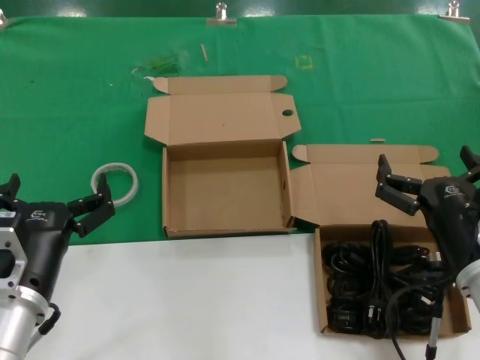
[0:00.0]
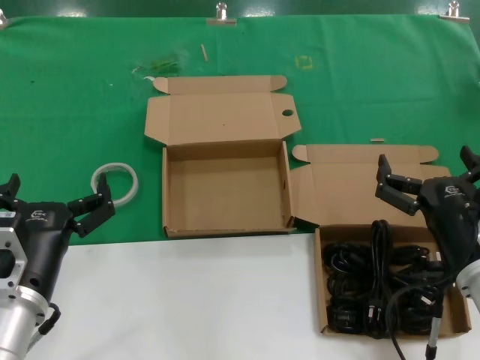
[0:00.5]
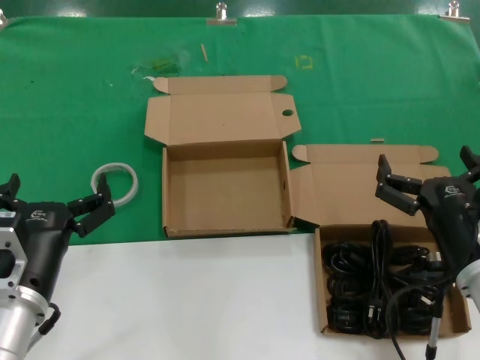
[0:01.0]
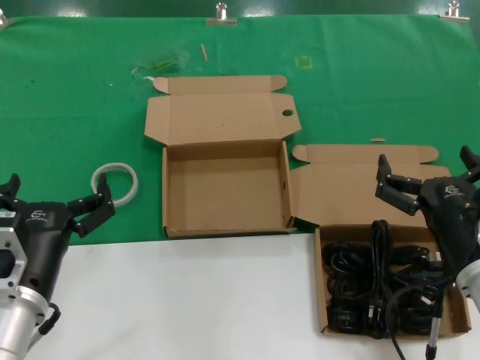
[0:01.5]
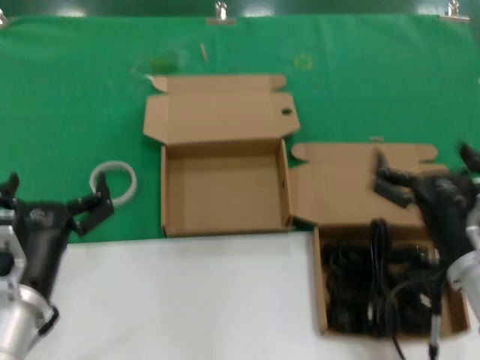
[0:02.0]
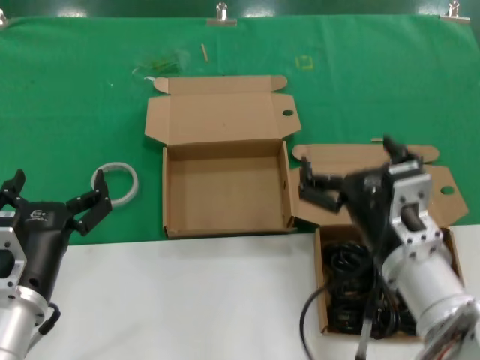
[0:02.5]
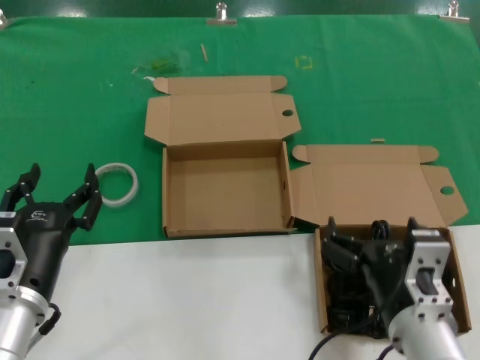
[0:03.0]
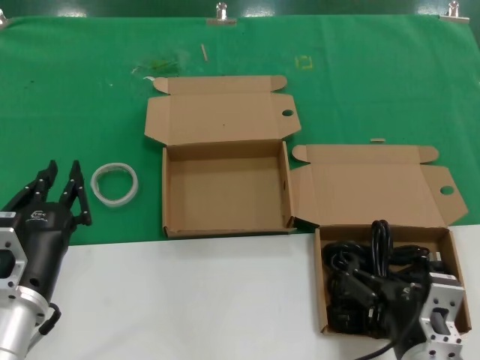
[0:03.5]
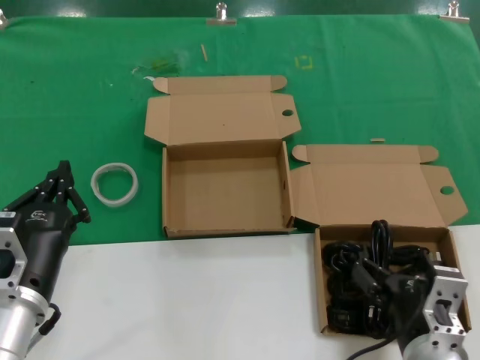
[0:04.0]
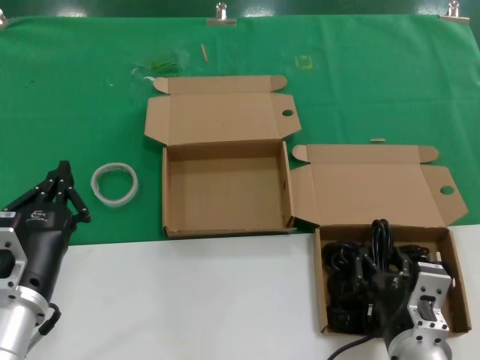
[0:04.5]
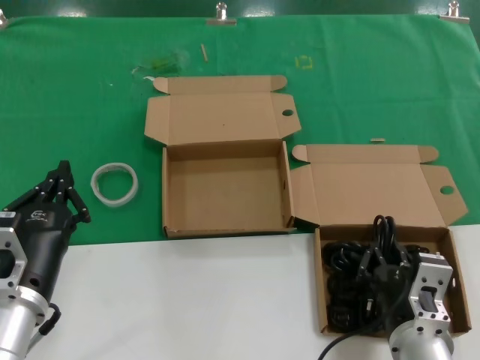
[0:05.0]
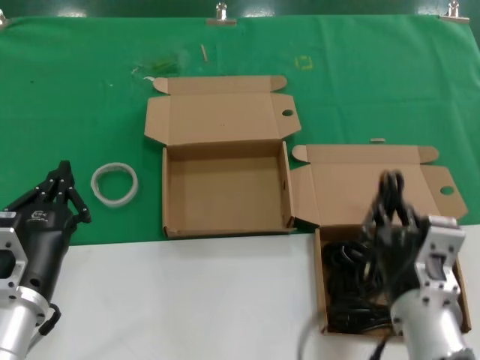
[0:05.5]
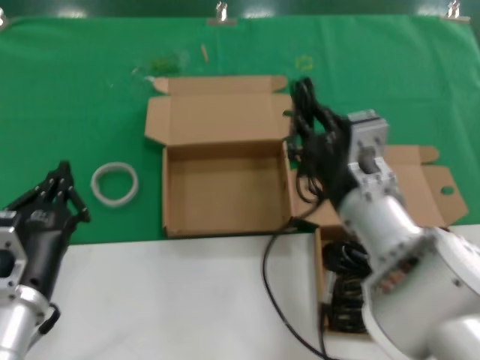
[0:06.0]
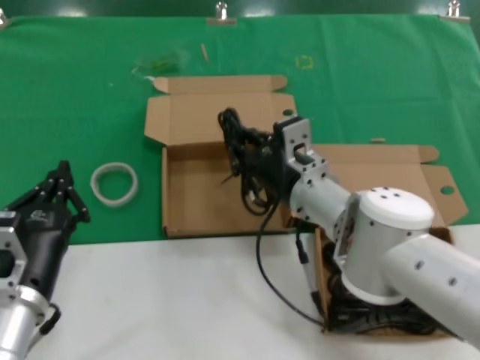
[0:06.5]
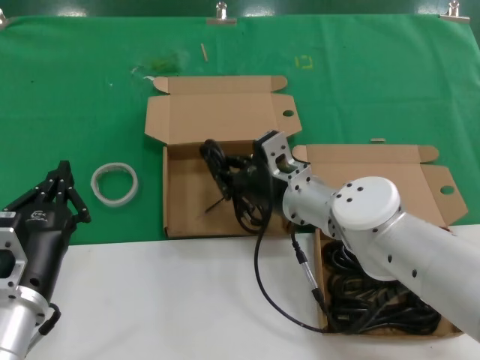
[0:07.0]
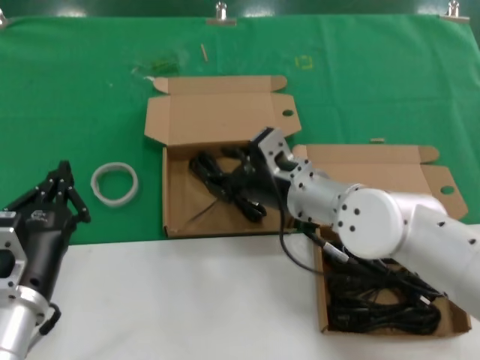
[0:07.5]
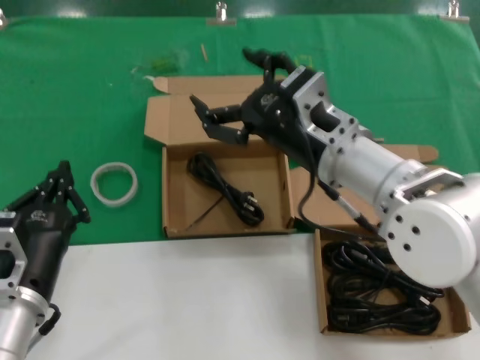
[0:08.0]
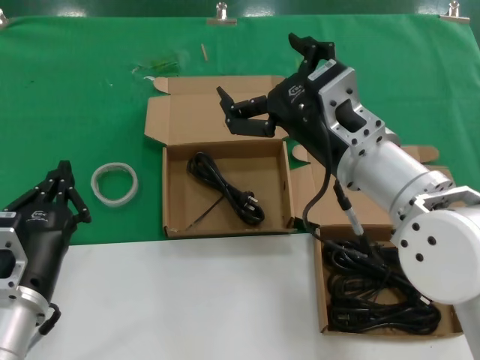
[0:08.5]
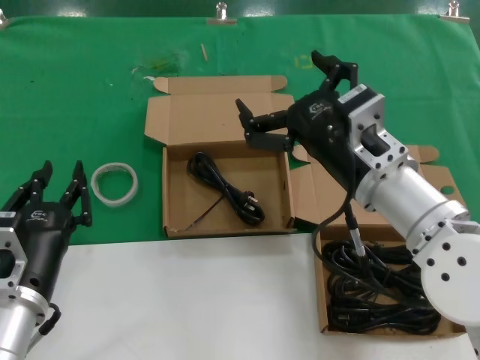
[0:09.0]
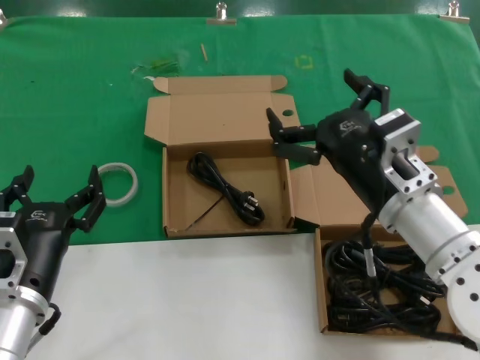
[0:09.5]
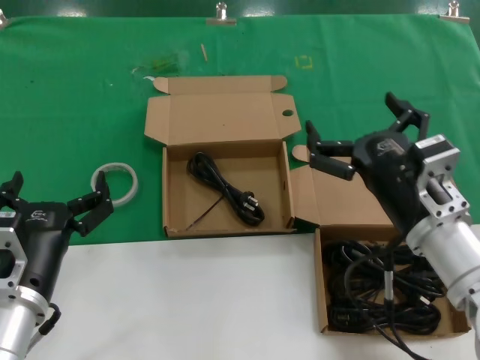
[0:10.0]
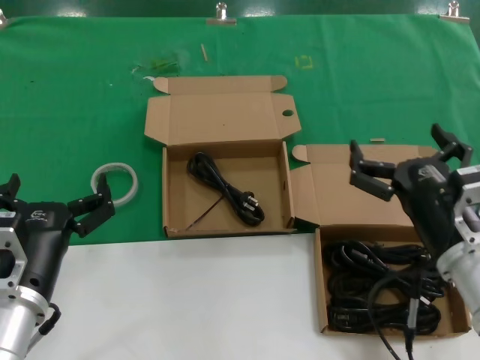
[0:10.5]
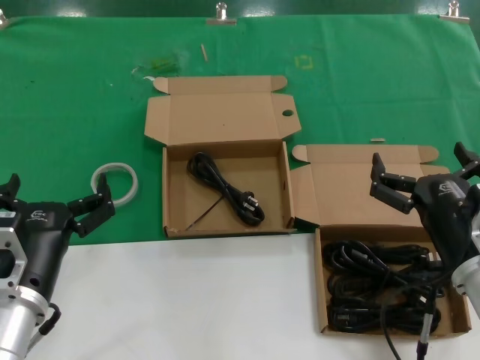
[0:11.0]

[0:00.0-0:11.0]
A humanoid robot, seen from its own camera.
Task of the whole recording: Pick up the power cord from the box containing it and place it in another box.
Step, 0:00.0 to 0:05.0: Grasp the data cable.
Step, 0:05.5 to 0:07.5: Place the data cable in the another box.
0:00.0 to 0:02.0: Both hands stay put.
0:02.0 to 0:03.5: The right hand is displaced to the left, downward and backward by approximately 10 cm.
0:03.5 to 0:05.5: The right hand shifts roughly 5 cm upward.
0:05.5 to 0:07.5: The right hand travels forward by about 20 cm.
0:07.5 to 0:09.0: The right hand moves backward and upward, some 15 cm.
0:09.0 to 0:11.0: The right hand is displaced downward, to the right and backward by about 15 cm.
